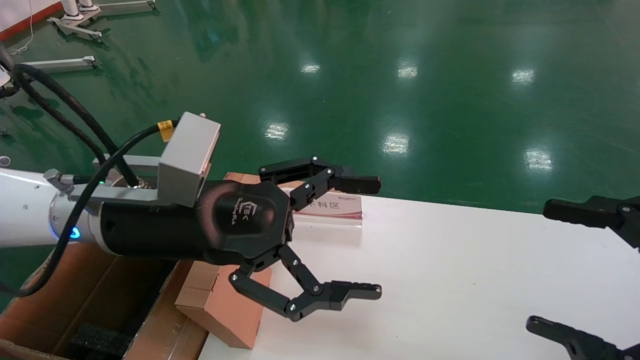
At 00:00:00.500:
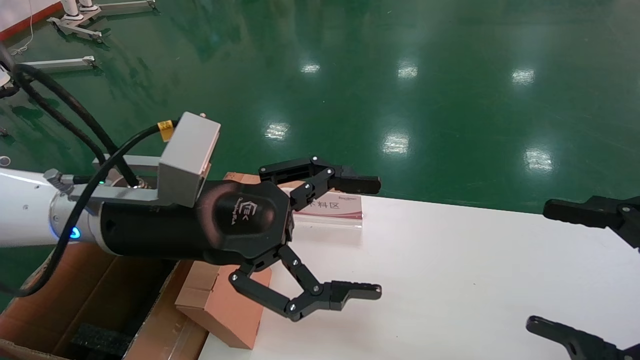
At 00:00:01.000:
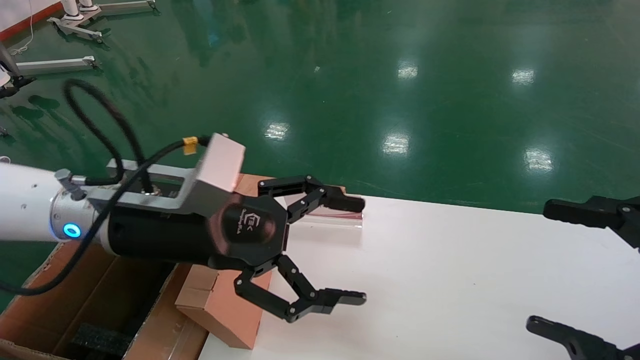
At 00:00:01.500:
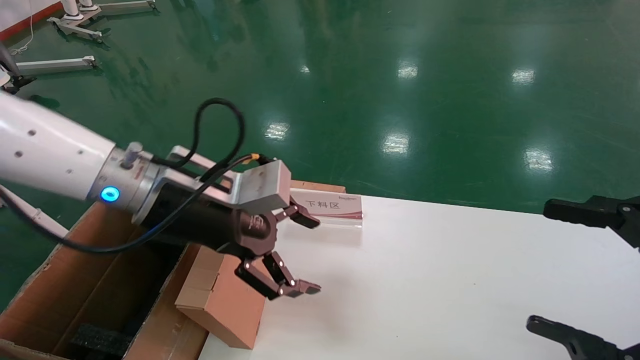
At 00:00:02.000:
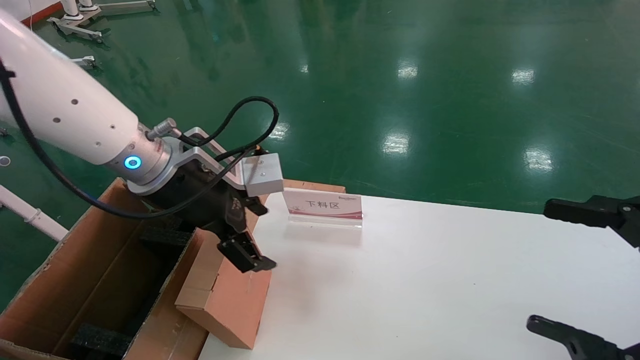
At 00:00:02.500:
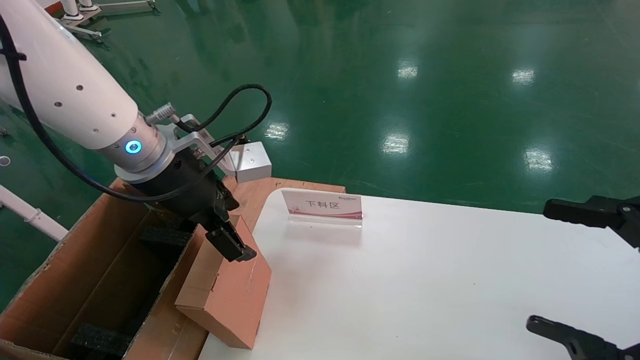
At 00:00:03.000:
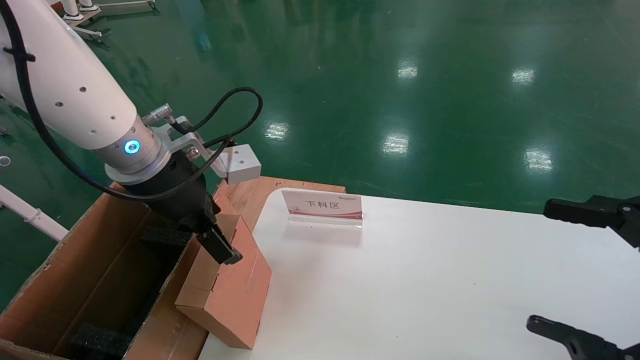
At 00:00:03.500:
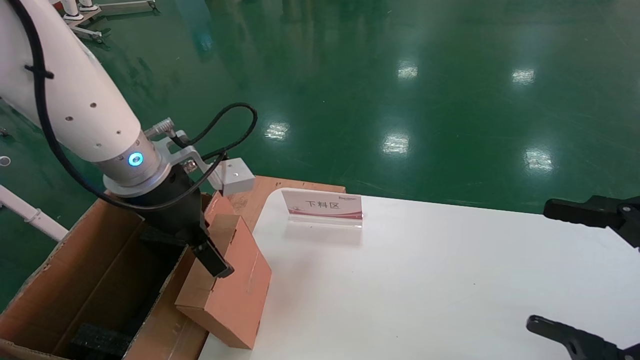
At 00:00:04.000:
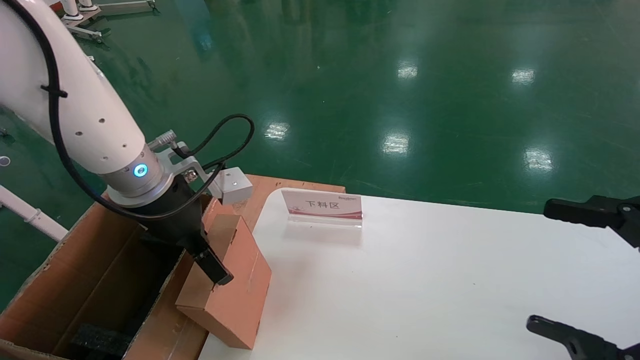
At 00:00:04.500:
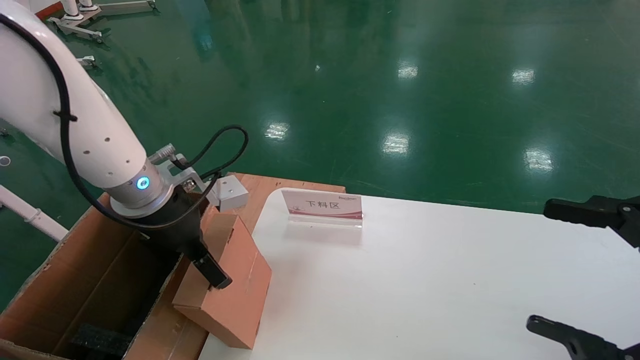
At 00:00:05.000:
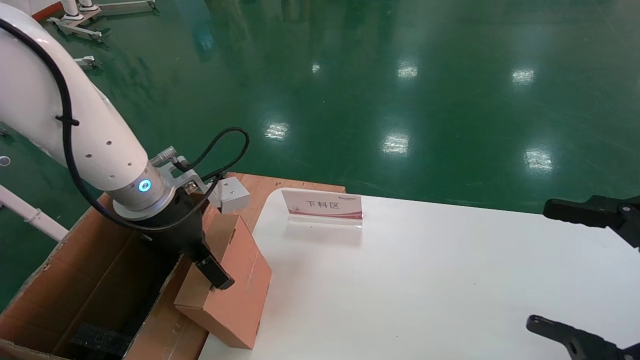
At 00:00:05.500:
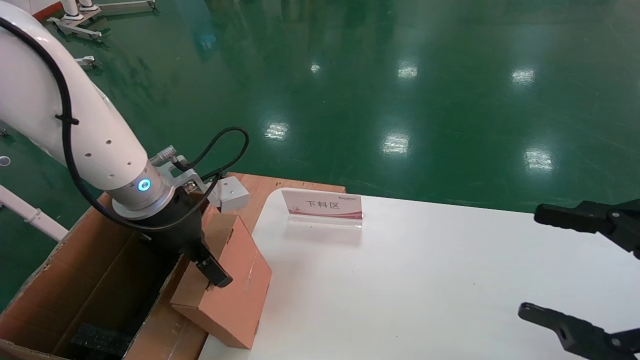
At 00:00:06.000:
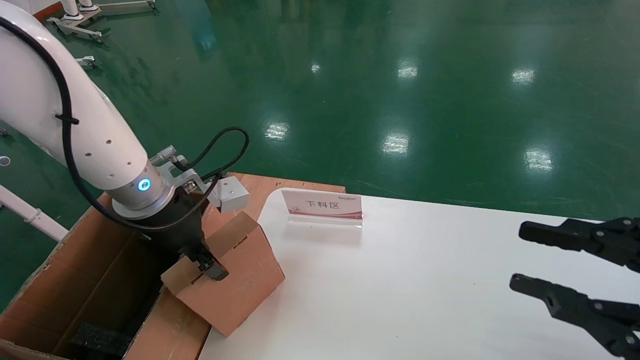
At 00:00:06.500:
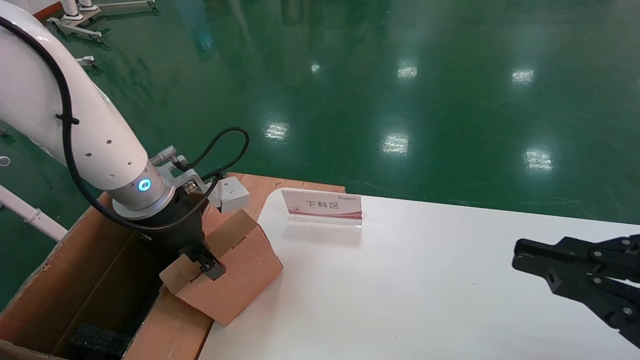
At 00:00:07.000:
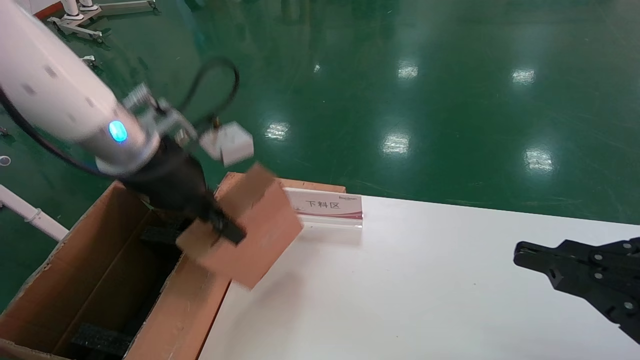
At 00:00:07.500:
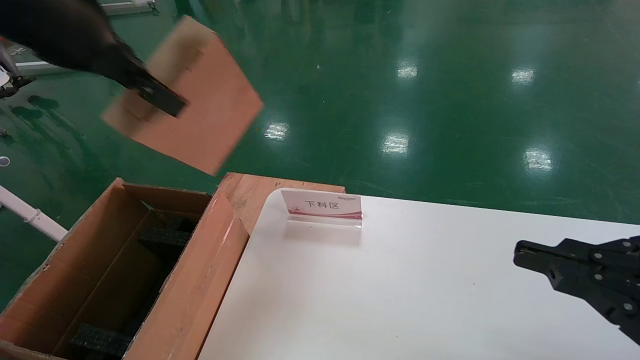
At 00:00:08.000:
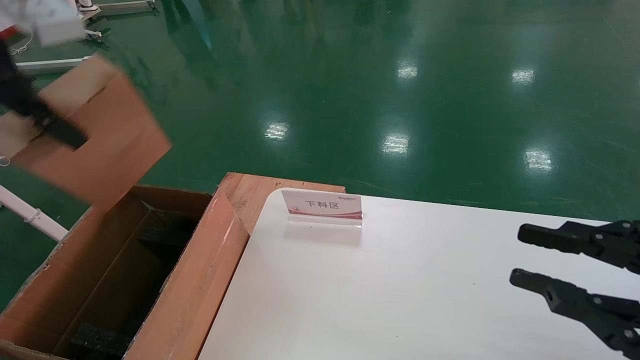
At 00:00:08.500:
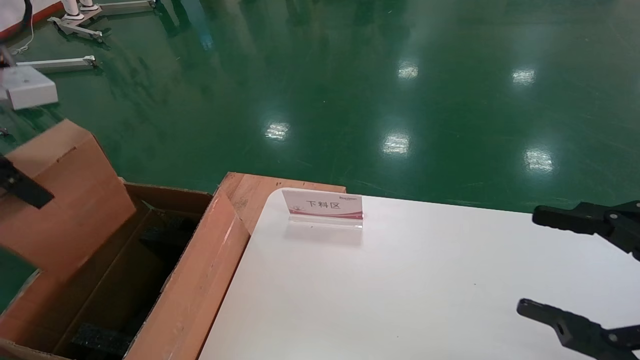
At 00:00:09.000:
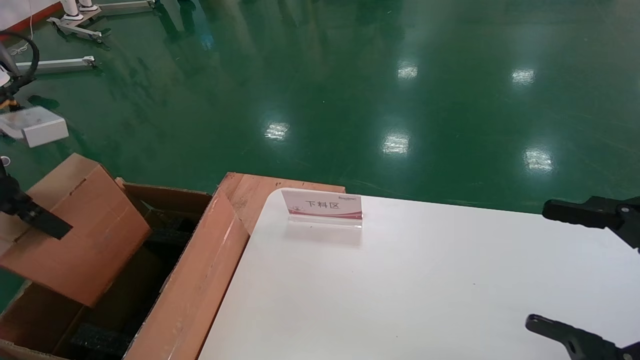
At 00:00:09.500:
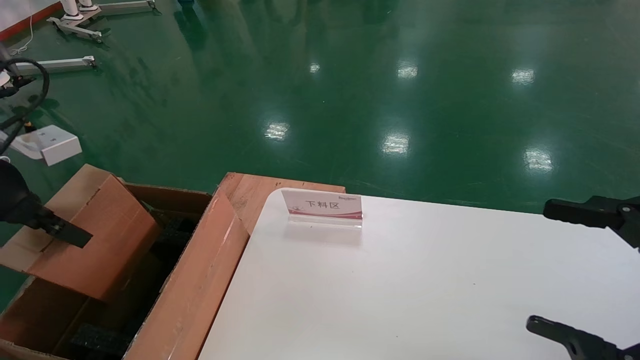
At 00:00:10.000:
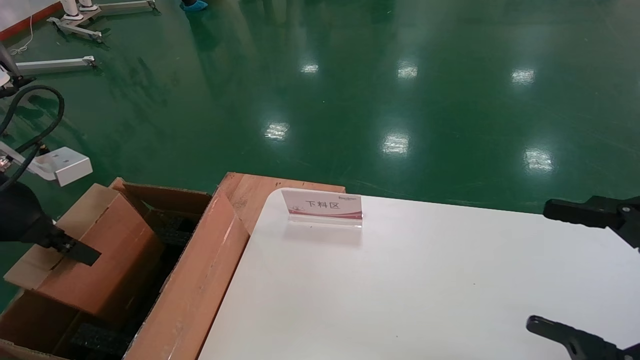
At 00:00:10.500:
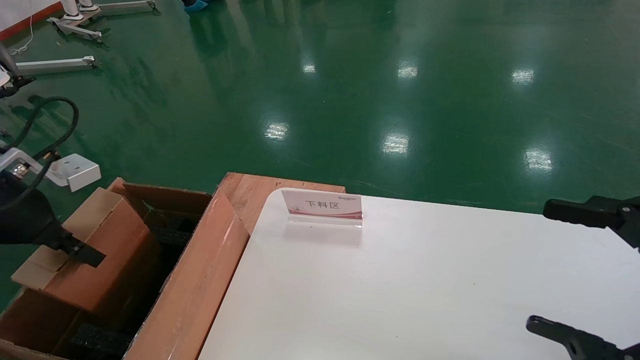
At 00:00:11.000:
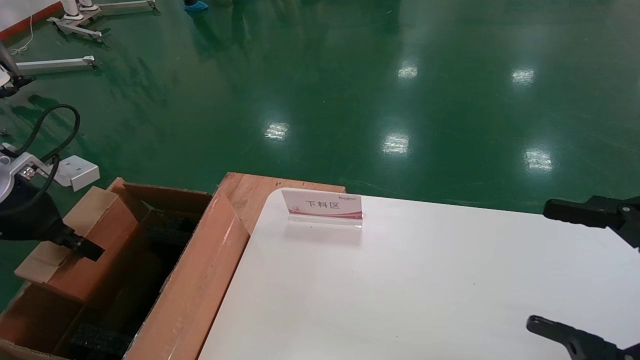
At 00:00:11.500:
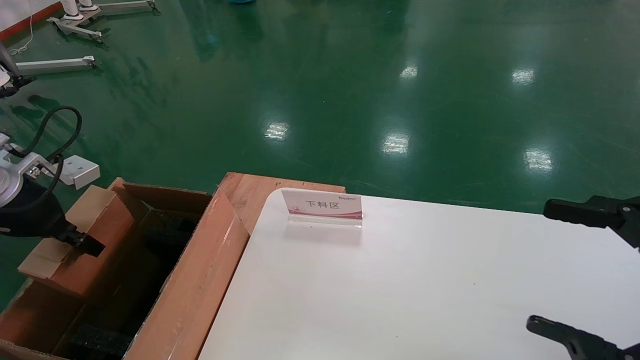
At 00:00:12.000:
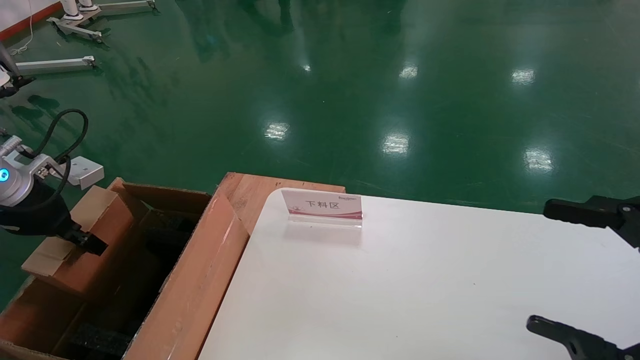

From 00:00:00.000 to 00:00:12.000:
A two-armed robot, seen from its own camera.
Task of the whole recording: pick up the small cardboard box and load it into the large cardboard box.
Step, from 00:00:01.000 to 00:00:06.000: Pick up the mouse and power cord box.
From 00:00:00.000 to 00:00:02.000: The left gripper goes about 5 cm forward.
From 00:00:04.000 to 00:00:06.000: The right gripper closes. Meanwhile the left gripper closes.
From 00:00:06.000 to 00:00:08.000: The left gripper shifts roughly 25 cm upward, backward and to the left, and closes up.
From 00:00:08.000 to 00:00:10.000: The right gripper opens its fingers, while the left gripper is displaced downward by roughly 15 cm.
From 00:00:10.000 to 00:00:12.000: The left gripper travels forward by about 5 cm.

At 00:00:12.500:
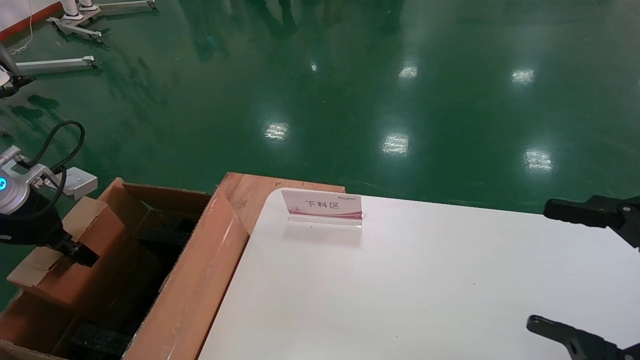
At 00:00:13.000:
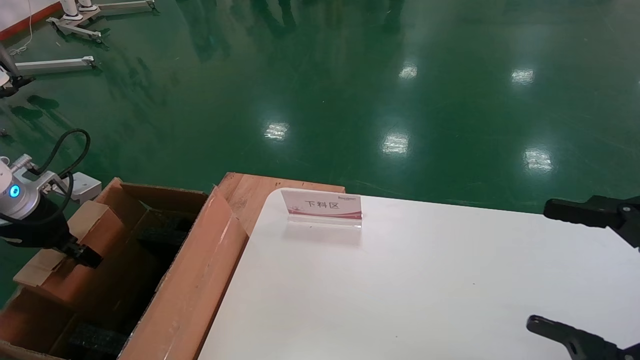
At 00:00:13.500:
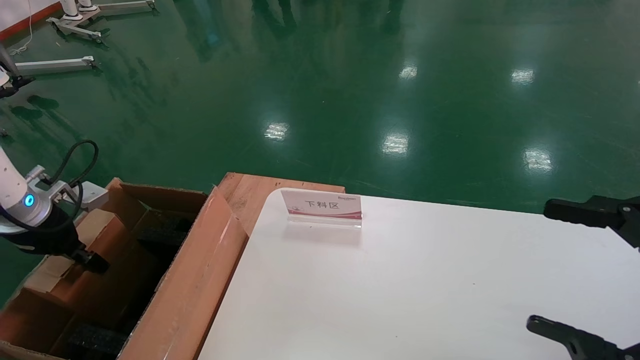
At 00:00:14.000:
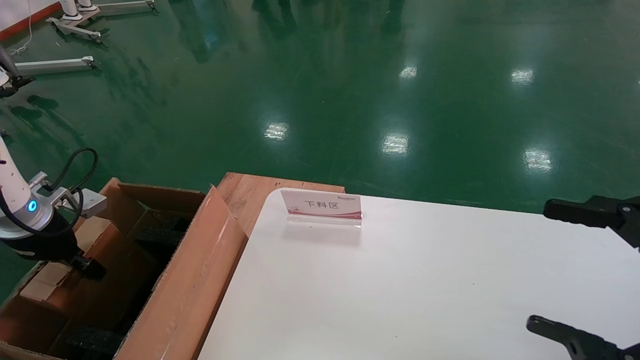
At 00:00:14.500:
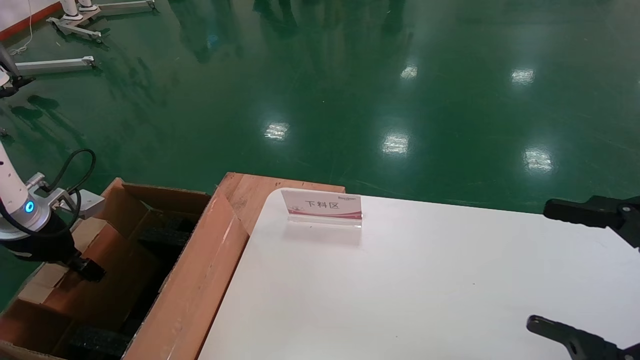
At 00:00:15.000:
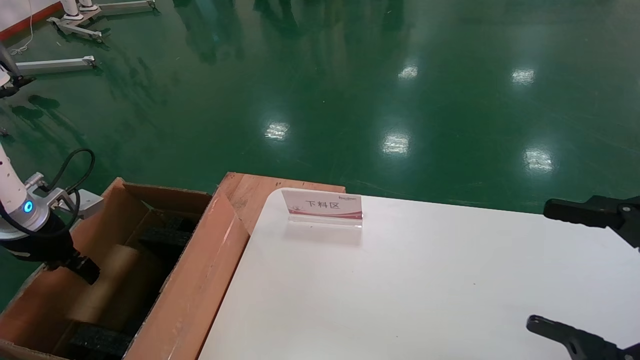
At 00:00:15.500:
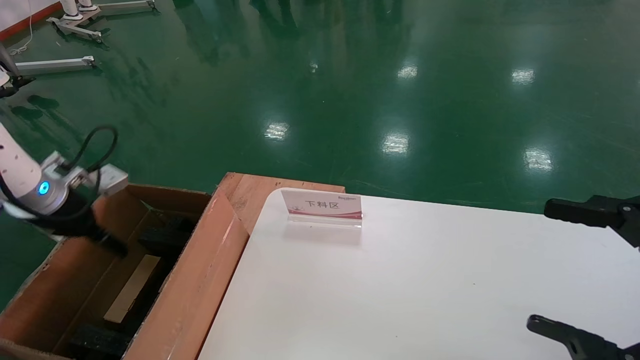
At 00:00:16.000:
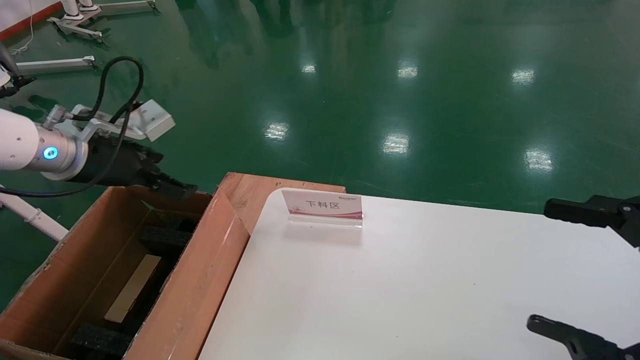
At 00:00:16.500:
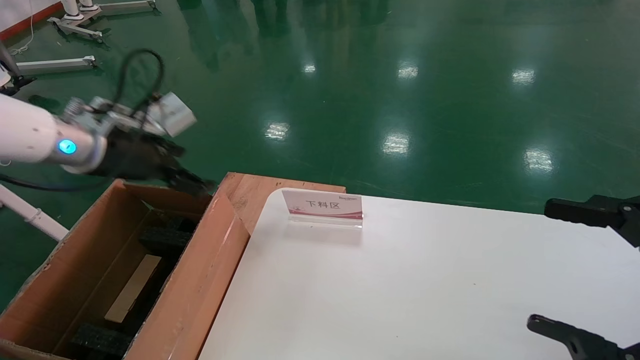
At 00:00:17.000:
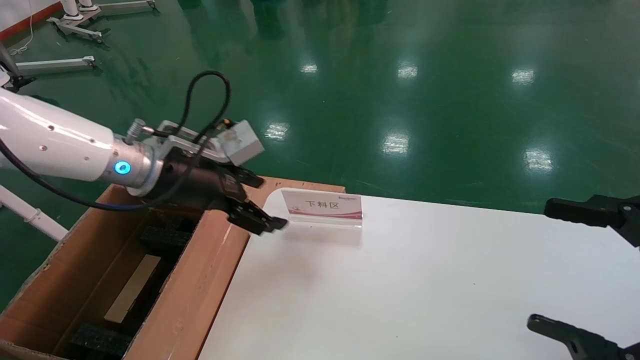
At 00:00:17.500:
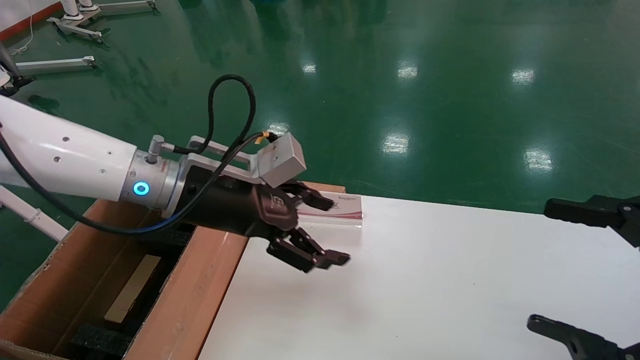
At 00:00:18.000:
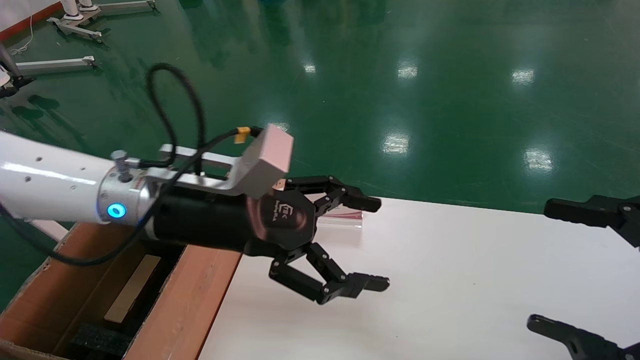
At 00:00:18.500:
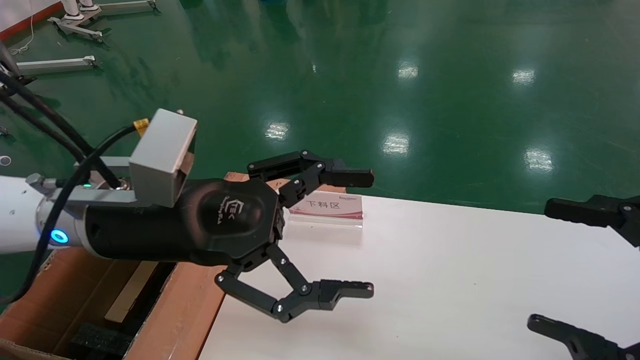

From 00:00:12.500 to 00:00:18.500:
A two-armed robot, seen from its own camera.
Task of the whole recording: pick up the small cardboard box and load it into the large cardboard box.
Step, from 00:00:12.500 to 00:00:14.500: Place the mouse and power cord box into the case.
From 00:00:12.500 to 00:00:14.500: The left gripper shifts roughly 5 cm downward.
From 00:00:14.500 to 00:00:16.500: The left gripper is displaced to the right and upward by approximately 20 cm, and opens.
From 00:00:16.500 to 00:00:18.500: The left gripper shifts roughly 15 cm to the right and backward.
